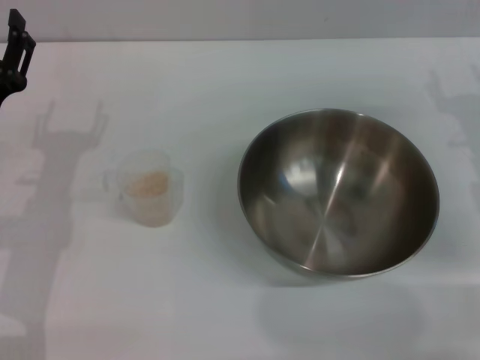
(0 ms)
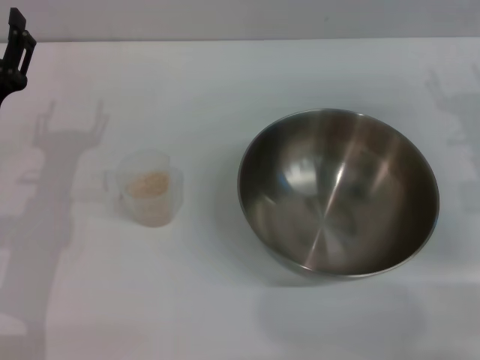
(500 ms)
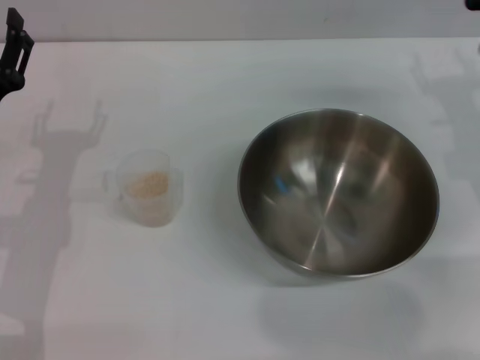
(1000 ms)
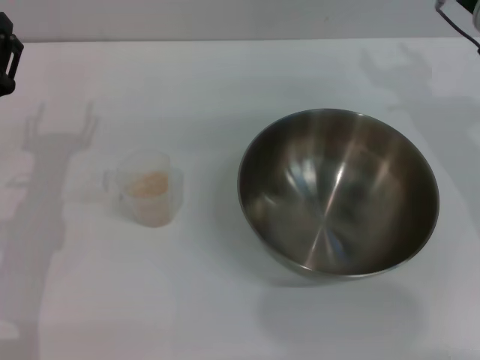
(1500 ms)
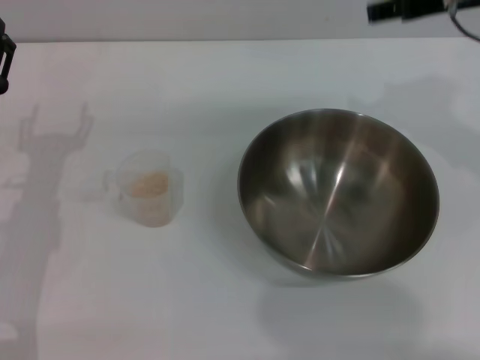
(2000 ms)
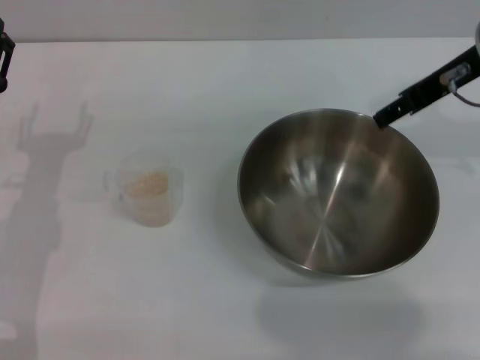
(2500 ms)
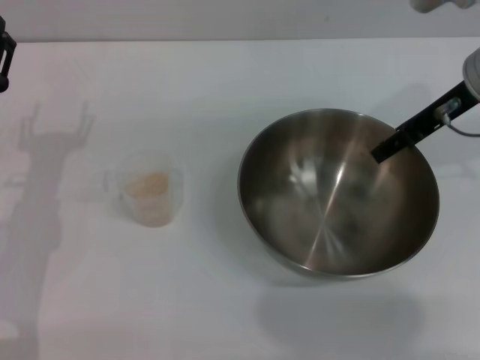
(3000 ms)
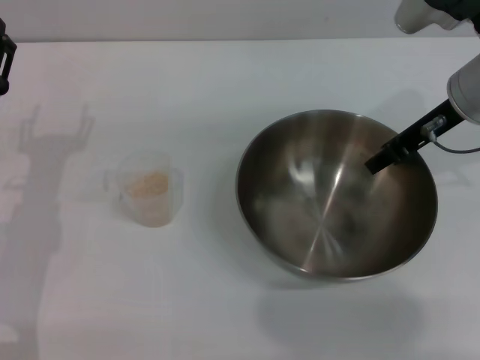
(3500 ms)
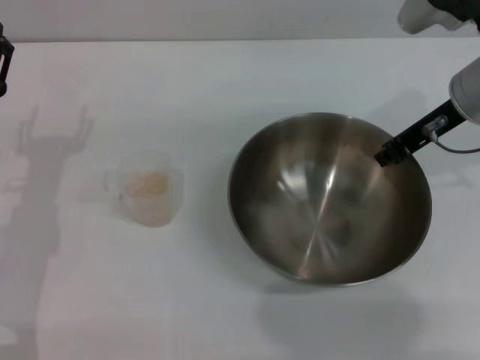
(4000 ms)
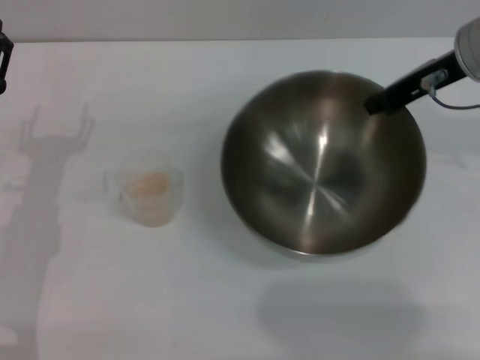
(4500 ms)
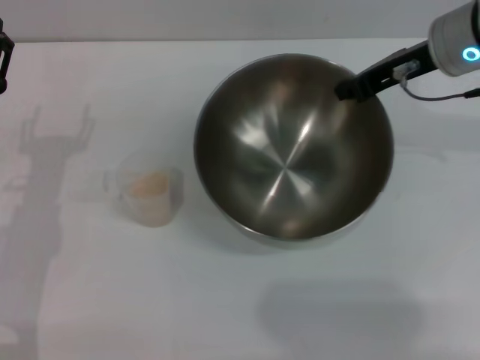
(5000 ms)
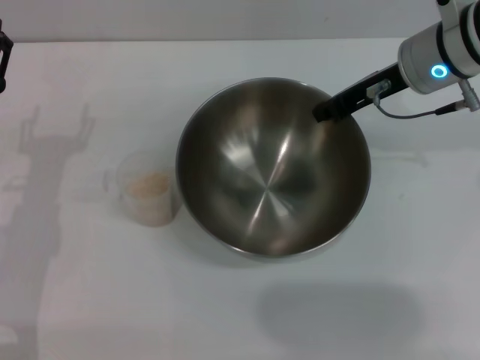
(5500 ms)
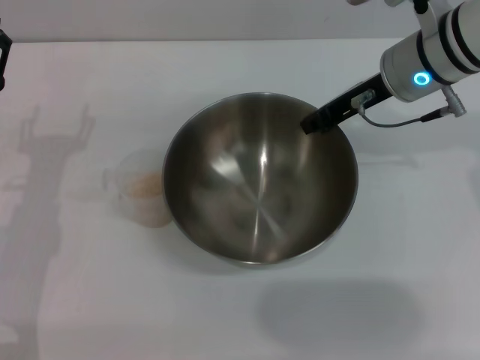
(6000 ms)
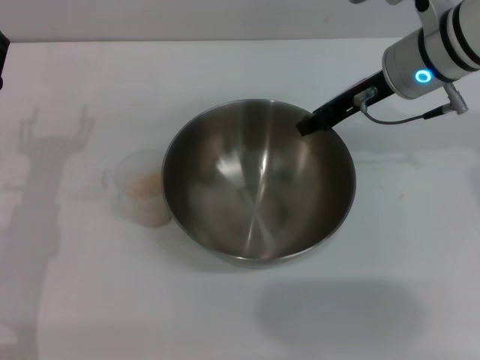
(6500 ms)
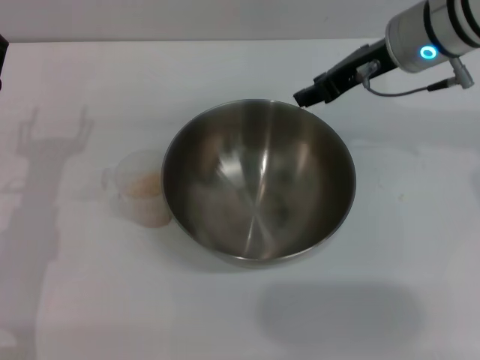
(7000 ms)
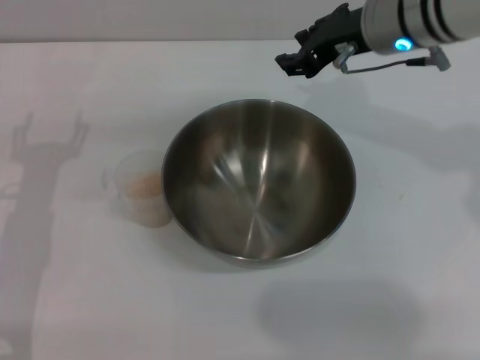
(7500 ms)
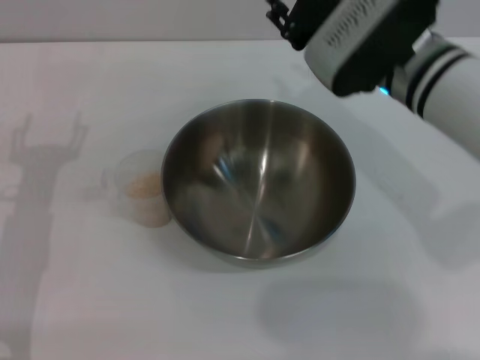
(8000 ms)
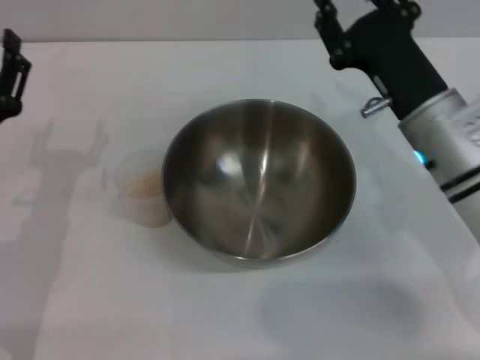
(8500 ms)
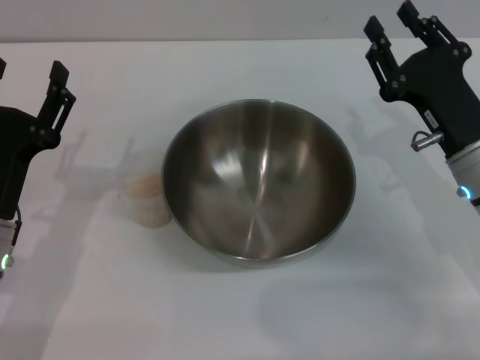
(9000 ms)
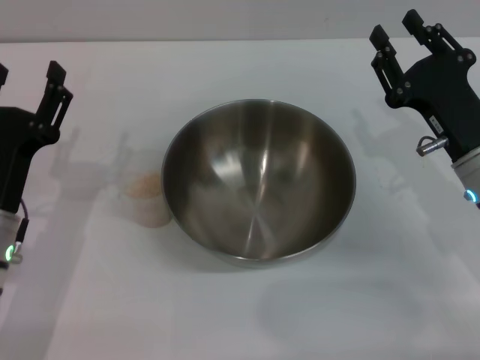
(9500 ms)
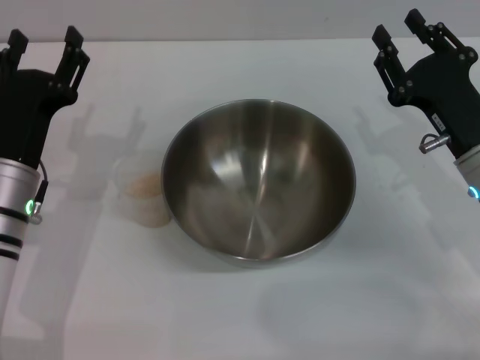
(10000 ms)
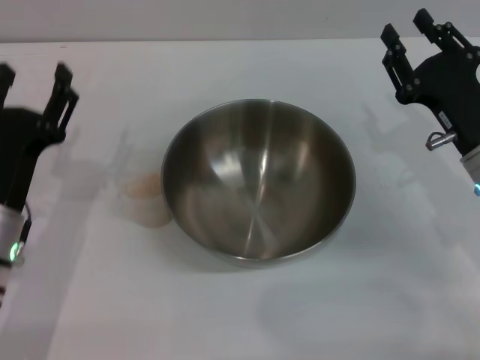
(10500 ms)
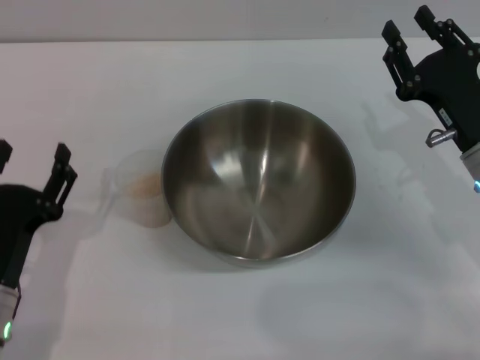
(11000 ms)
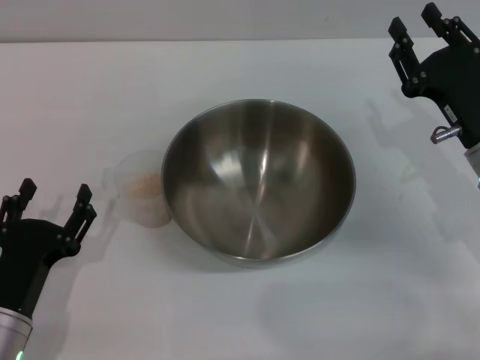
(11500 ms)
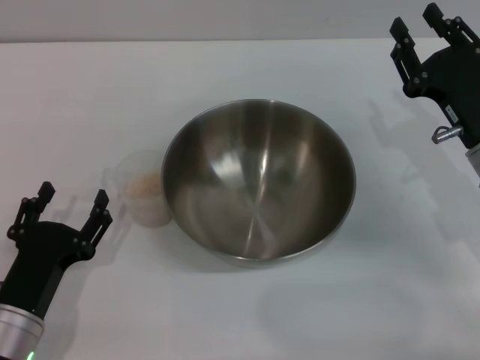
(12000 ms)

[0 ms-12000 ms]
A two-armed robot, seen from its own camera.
Task of the whole recording: Place the bowl in the middle of the table with one hand and pour the rice from the grain cup into it with the other hand.
Step, 0 ms to 4500 ms: Pick up the bowl with the right gripper.
Step, 5000 ms to 7000 ms: Place the bowl in the center of view with the right gripper.
0 ms to 2000 ms: The right gripper heads upward and to the left, covering some 20 cm.
2000 ms to 4000 ms: The right gripper shifts roughly 10 cm downward, and closes.
4000 ms to 6000 ms: The right gripper changes place by about 5 cm.
6000 ms to 8000 ms: The right gripper moves backward, some 5 cm, and opens.
8000 ms to 10000 ms: The left gripper changes place by about 5 cm, while the right gripper heads to the right, downward and backward, covering some 15 cm.
10000 ms to 12000 ms: The left gripper shifts approximately 15 cm backward and downward.

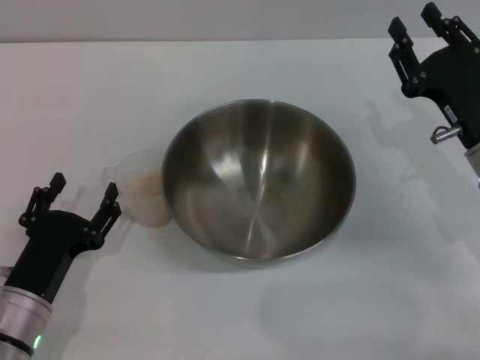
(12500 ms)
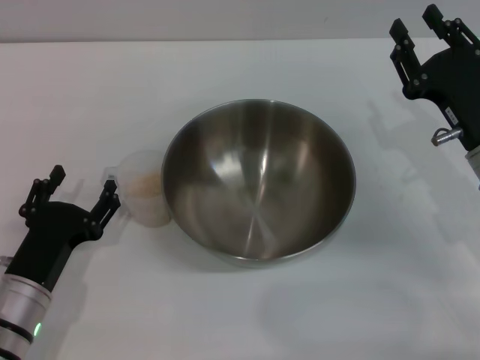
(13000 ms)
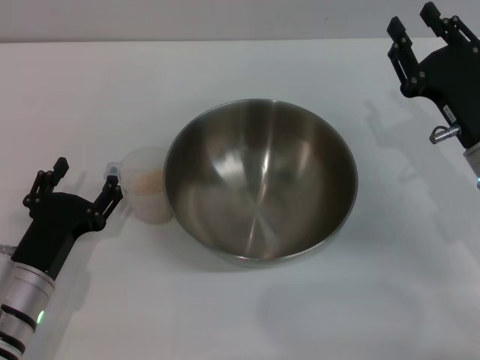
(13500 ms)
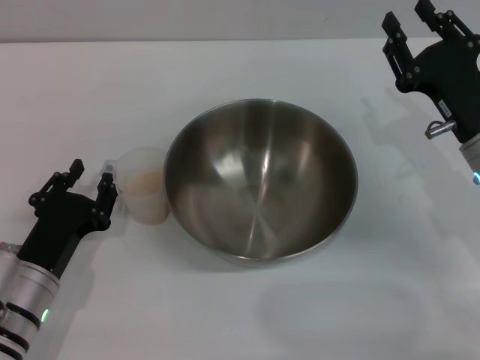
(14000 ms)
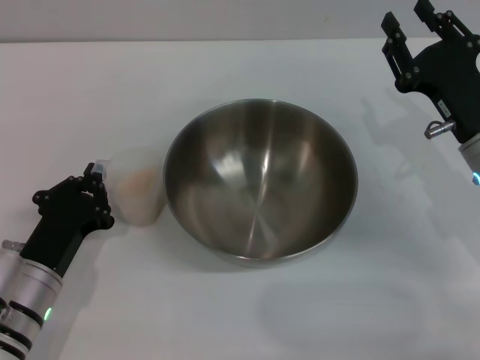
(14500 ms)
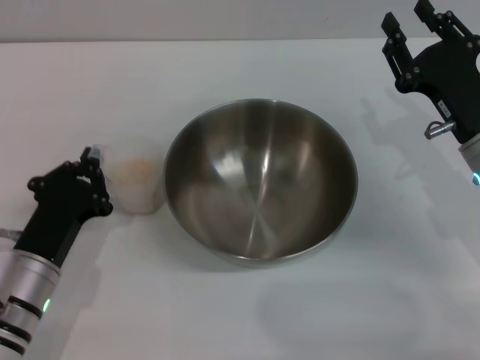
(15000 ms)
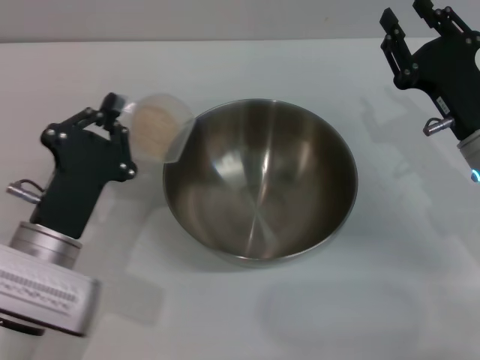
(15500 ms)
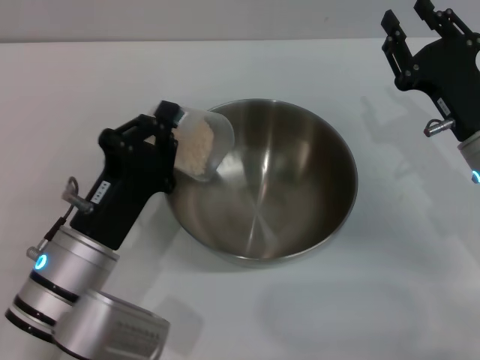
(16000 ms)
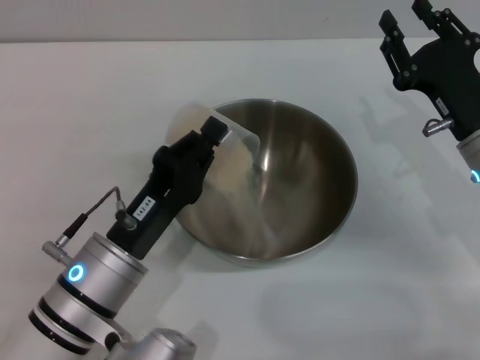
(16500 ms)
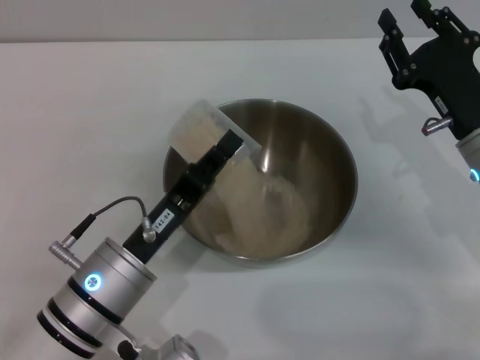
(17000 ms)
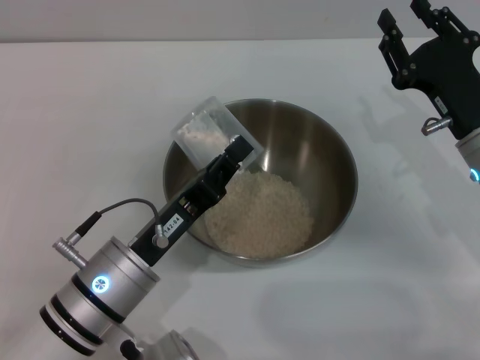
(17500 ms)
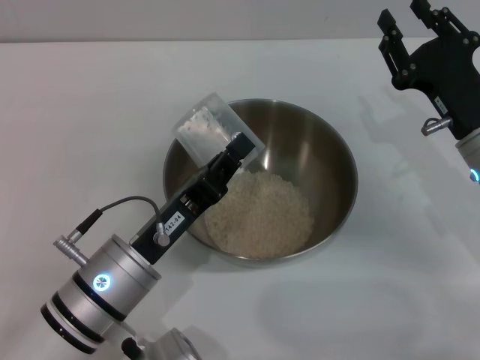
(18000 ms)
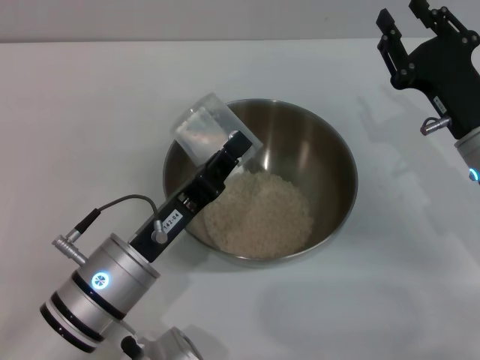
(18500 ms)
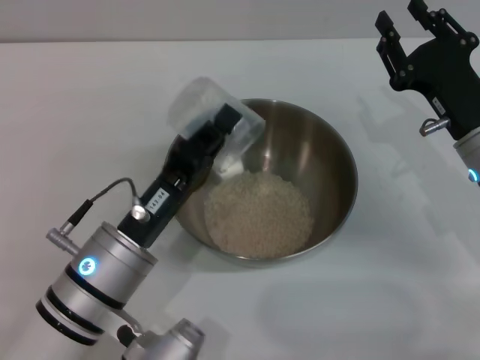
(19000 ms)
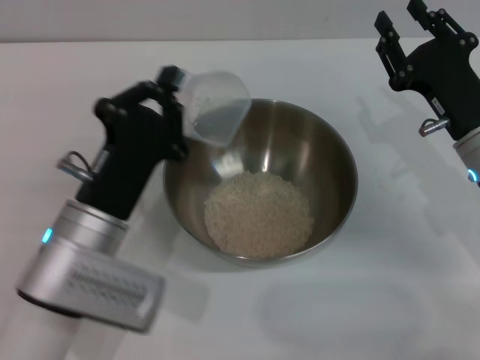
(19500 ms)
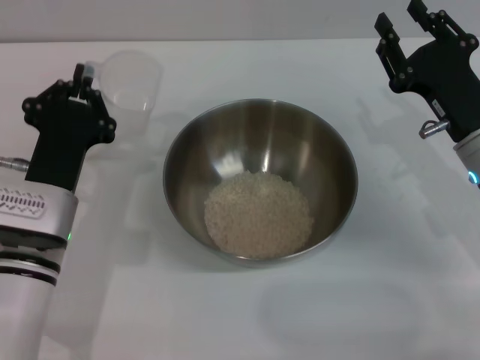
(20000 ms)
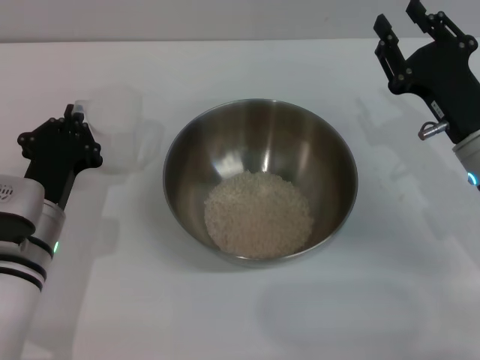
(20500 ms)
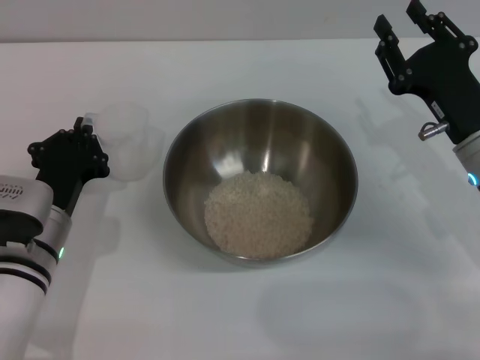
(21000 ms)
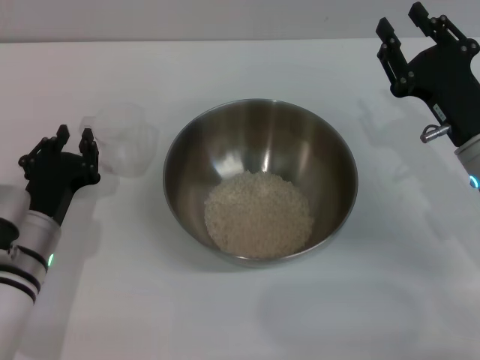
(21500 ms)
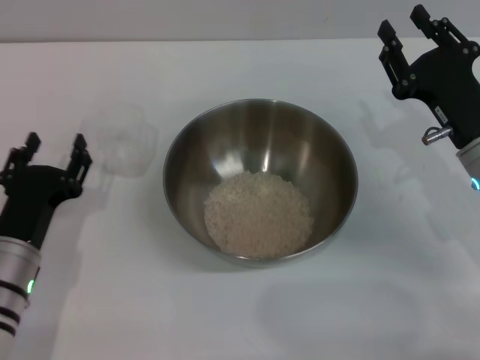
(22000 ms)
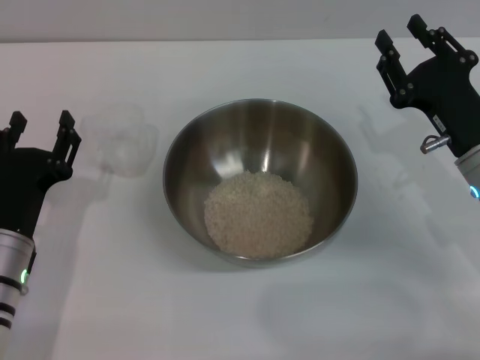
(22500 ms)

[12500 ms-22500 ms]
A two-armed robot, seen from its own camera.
Task of the whole recording: Place the bowl in the middle of the table with one hand and pour the rice from the grain cup into it with the other hand.
Step, 12500 ms to 15000 ms: Pick up the cup with rice in it with the left gripper.
Step, 15500 ms to 18500 ms: Pour the rice from the cup into the bowl with the left gripper.
Step, 19000 ms to 22000 ms: Place the cup on the table with the left gripper.
12500 ms to 14500 ms: The left gripper closes.
14500 ms to 16500 ms: The left gripper is displaced to the right by some 10 cm.
18500 ms to 20500 ms: The left gripper moves to the left and forward, roughly 10 cm.
20500 ms to 22500 ms: The left gripper opens its fingers.

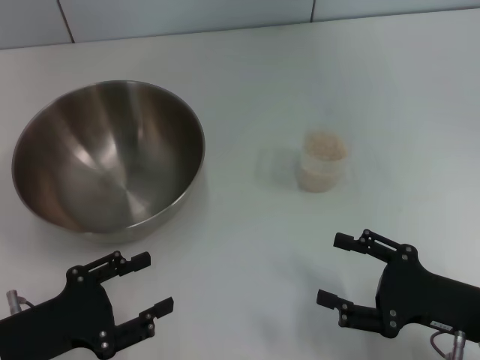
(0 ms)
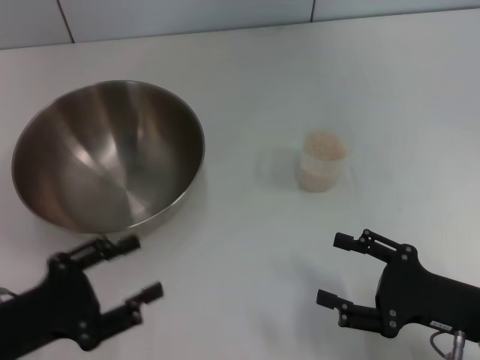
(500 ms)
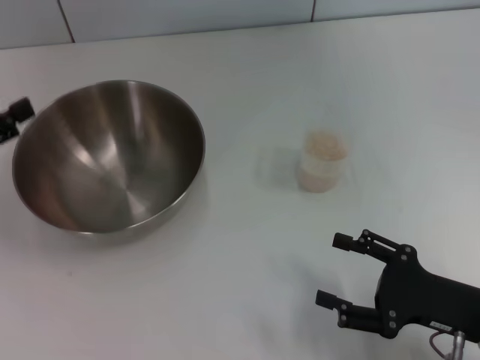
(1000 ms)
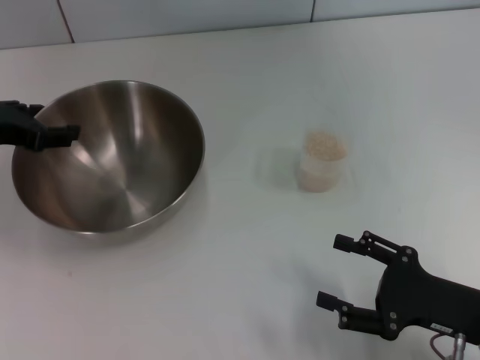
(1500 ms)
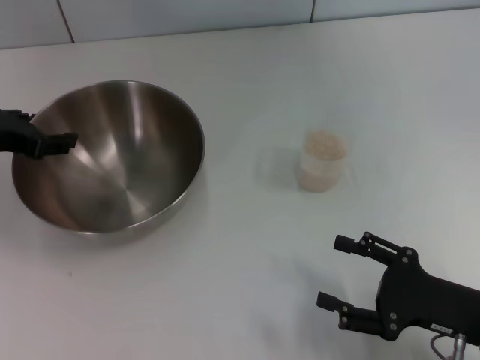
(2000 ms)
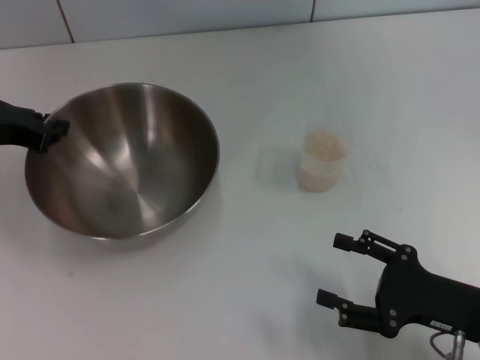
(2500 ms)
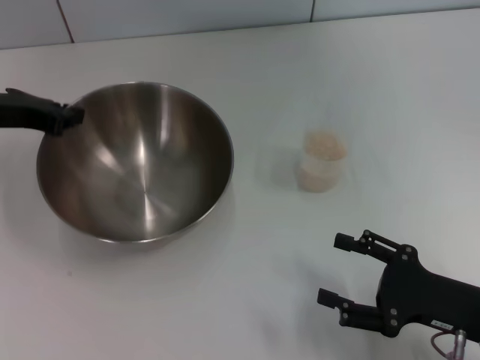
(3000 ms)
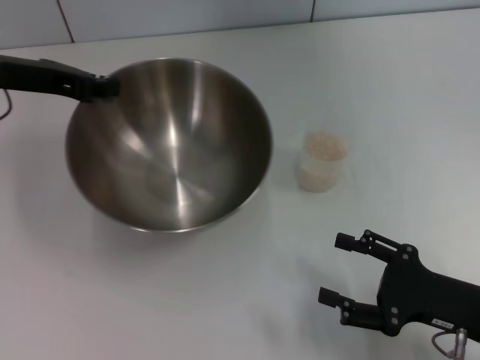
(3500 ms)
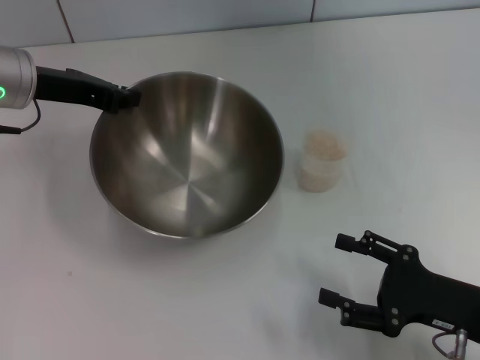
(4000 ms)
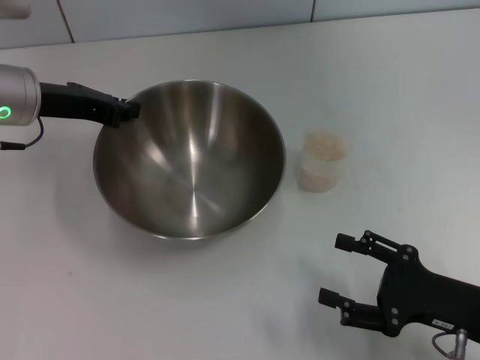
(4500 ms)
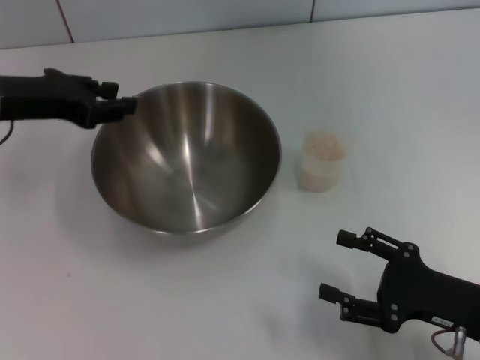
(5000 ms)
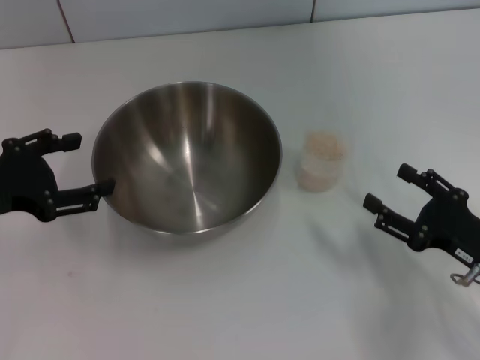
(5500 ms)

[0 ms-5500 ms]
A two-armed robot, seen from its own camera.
Task of the whole recording: Place the bowl in the middle of the table with one hand and pour the rice from the grain cup into it with the other hand.
Step, 0 ms to 3000 ms: Pick up the bowl with the left gripper.
Step, 3500 ms to 5000 ms: Place the bowl in the center of view with the left gripper.
0 ms to 2000 ms: The left gripper is displaced forward and upward by roughly 20 cm.
2000 ms to 3500 ms: The left gripper ends up about 5 cm from where it was, and closes up.
3500 ms to 5500 ms: The left gripper shifts roughly 15 cm backward, and opens its fingers.
